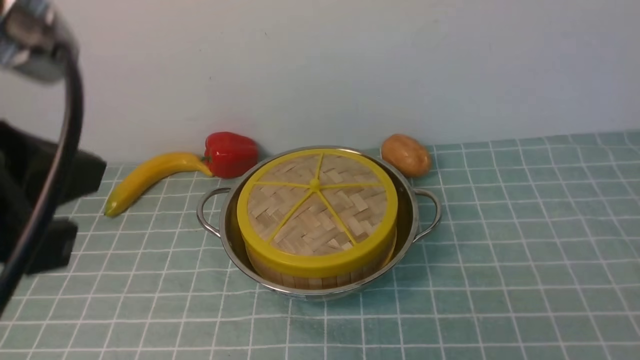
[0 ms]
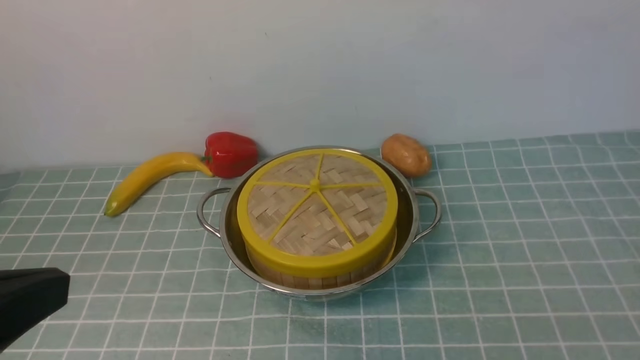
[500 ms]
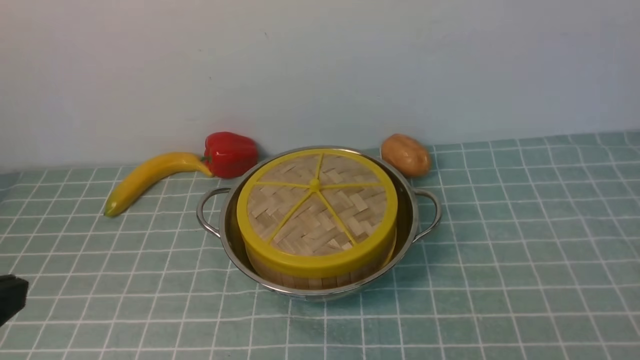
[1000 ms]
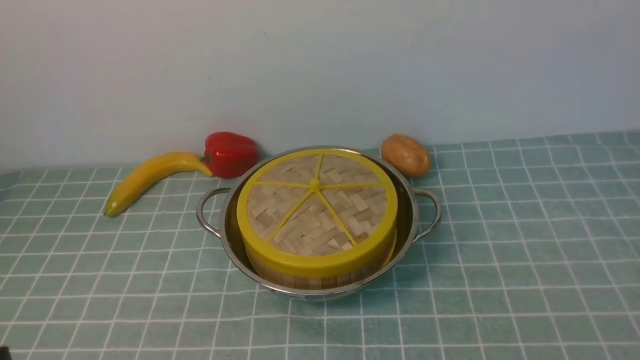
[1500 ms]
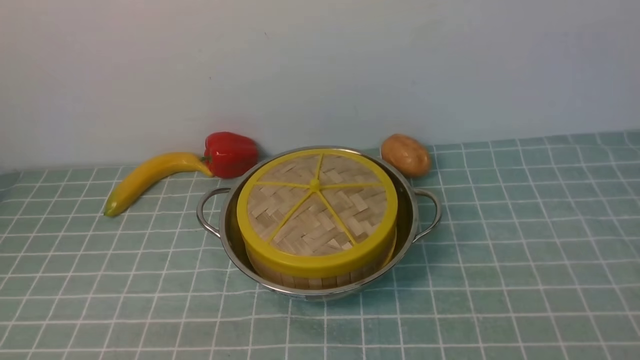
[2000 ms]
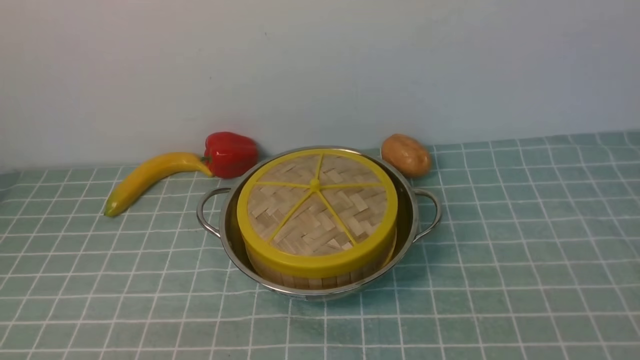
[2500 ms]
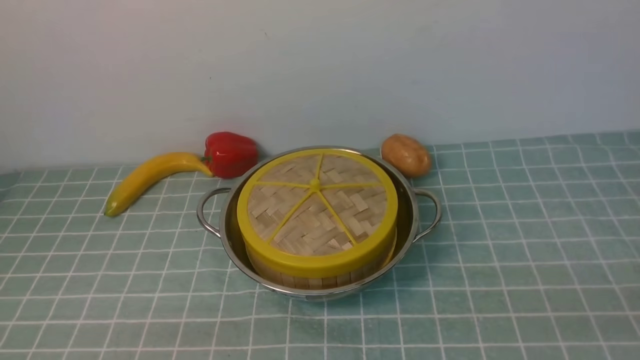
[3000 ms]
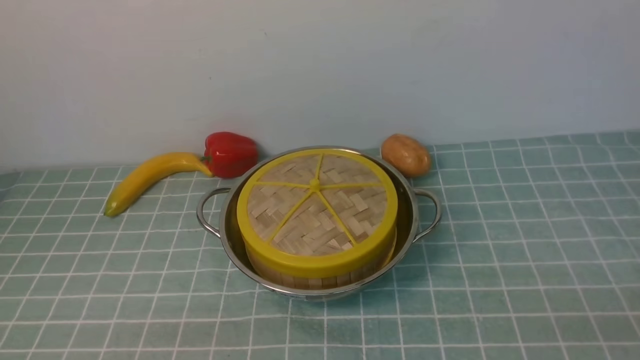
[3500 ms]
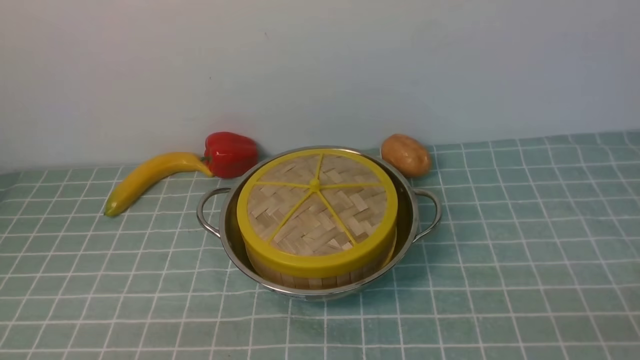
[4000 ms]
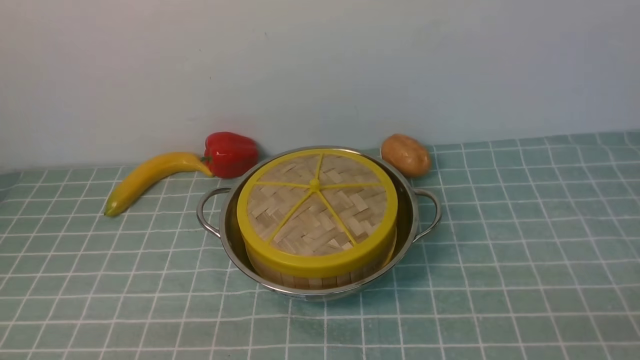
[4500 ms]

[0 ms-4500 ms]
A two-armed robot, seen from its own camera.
Task of the whole recording: place the steamer in the pot on the blue tablecloth, and put the lid on the steamer.
0 ms to 2000 ms: The left gripper shifts some 25 cm downward.
